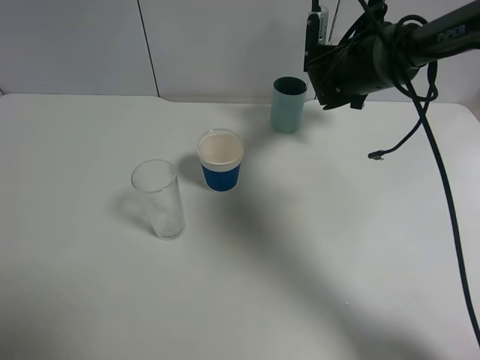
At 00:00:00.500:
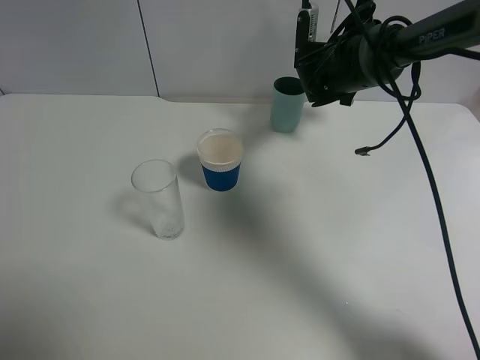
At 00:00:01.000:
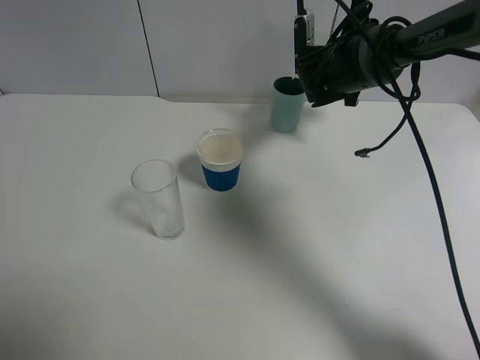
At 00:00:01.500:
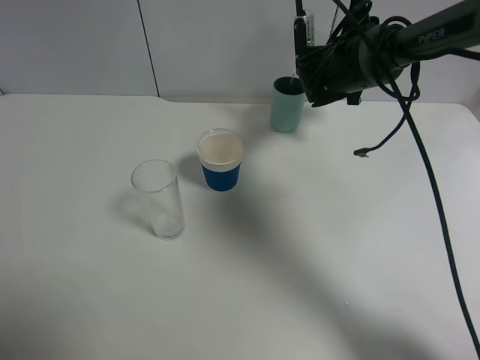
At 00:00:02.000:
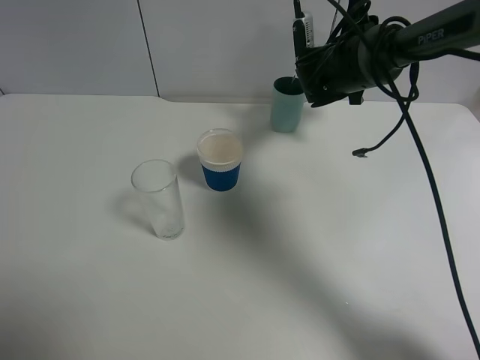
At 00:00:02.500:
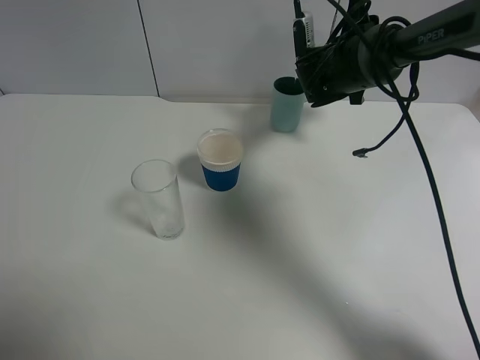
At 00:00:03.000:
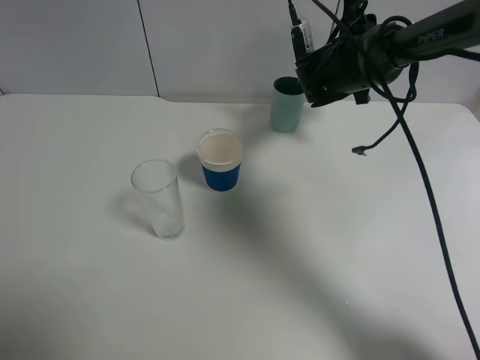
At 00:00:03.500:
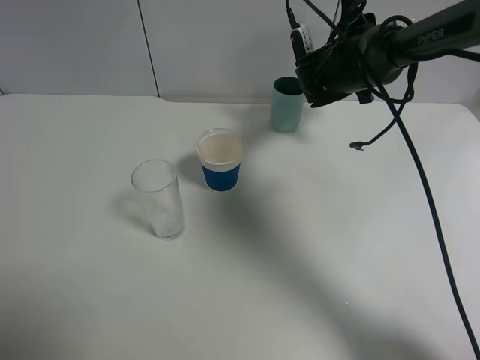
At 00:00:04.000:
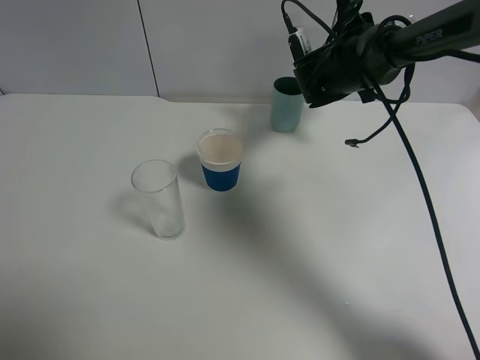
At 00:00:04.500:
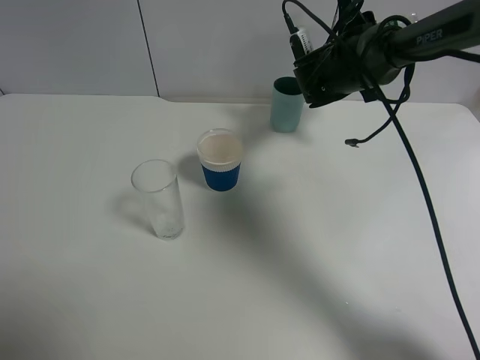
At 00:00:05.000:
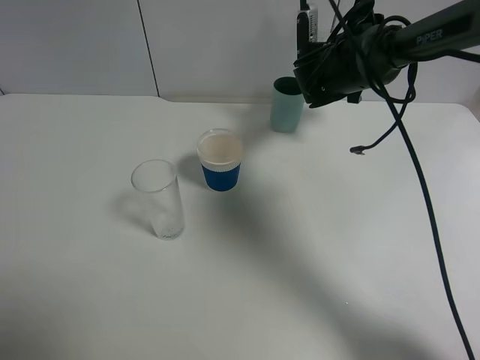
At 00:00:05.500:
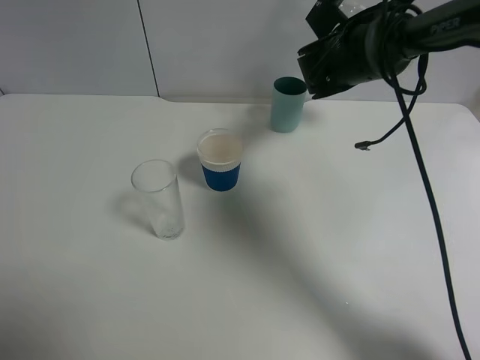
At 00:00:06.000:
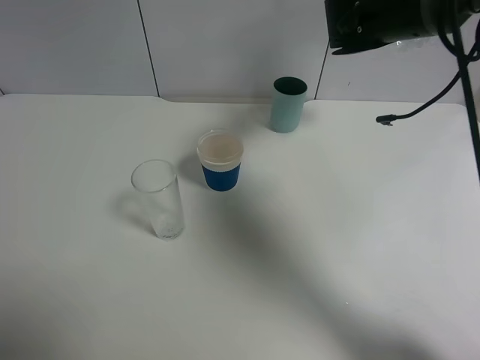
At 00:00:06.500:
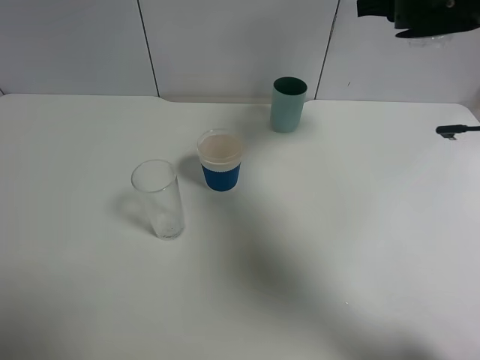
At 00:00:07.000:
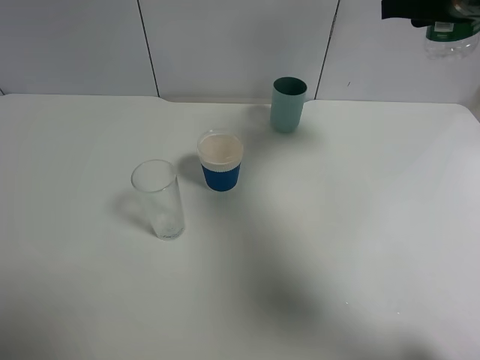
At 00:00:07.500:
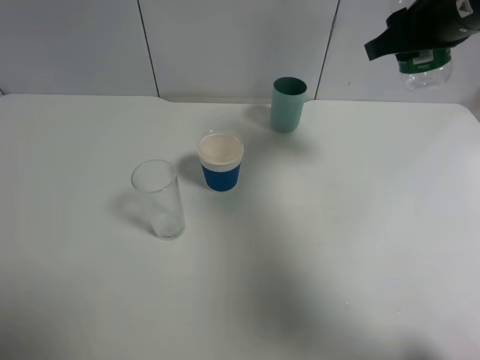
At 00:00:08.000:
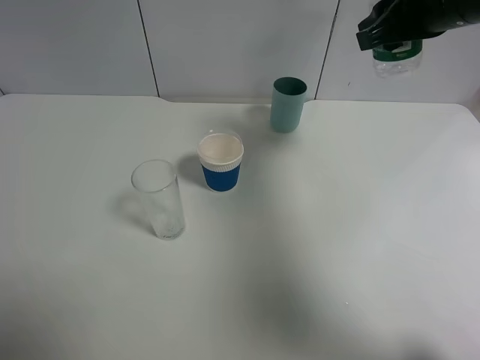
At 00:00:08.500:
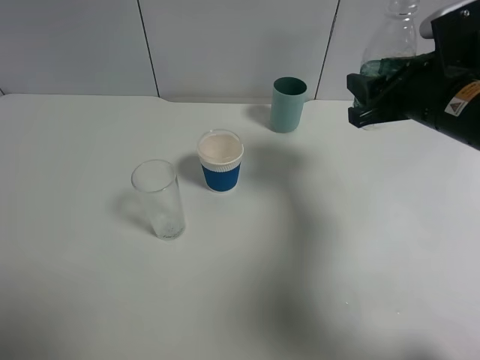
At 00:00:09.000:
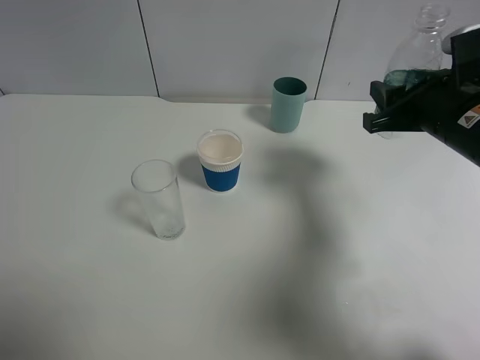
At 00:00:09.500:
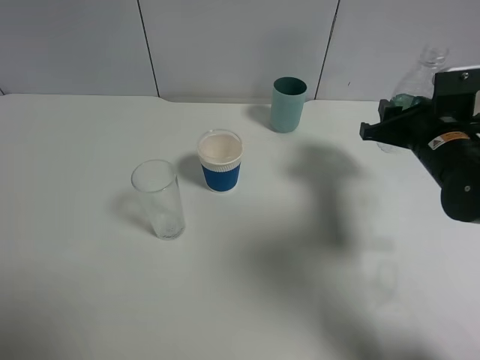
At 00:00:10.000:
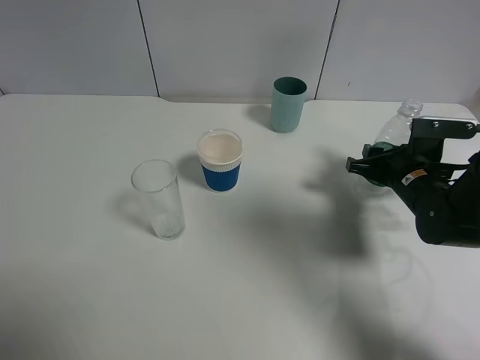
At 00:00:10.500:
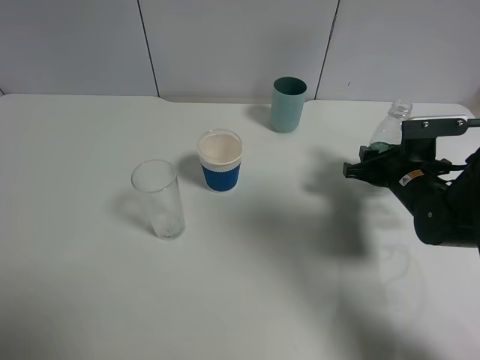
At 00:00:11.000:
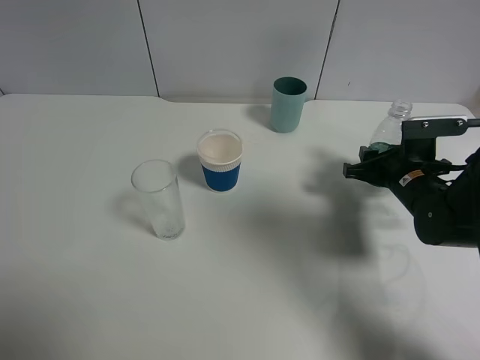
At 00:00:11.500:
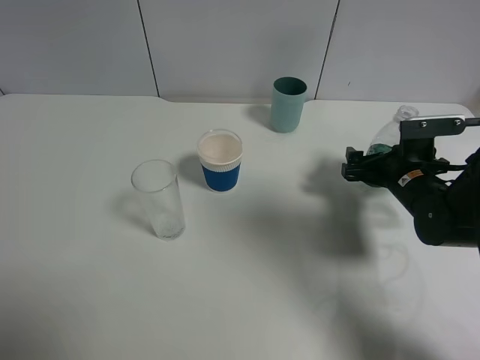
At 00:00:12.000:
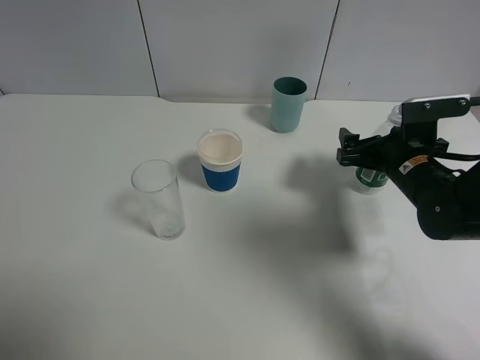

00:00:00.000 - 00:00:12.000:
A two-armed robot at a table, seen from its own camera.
Task of the whole recording: use a gripper to hold the bottle of the drink and pour it into a random cup.
Step, 00:00:00.000 - 00:00:05.000: Pour the mineral water into the cyan cup with the right gripper.
00:00:00.000 - 00:00:02.000: The grippers stay close to where they were, moving slightly.
00:00:02.000 - 00:00:04.000: The grippers move only a little.
00:00:04.000 - 00:00:06.000: The right gripper heads upward, covering about 10 cm.
00:00:06.000 - 00:00:08.000: The right gripper moves backward, about 10 cm.
00:00:08.000 - 00:00:10.000: The right gripper shifts some 25 cm downward.
00:00:10.000 - 00:00:12.000: The right gripper opens.

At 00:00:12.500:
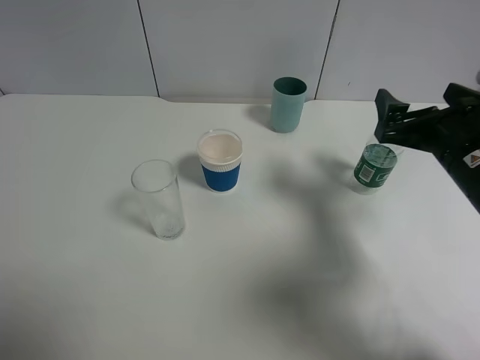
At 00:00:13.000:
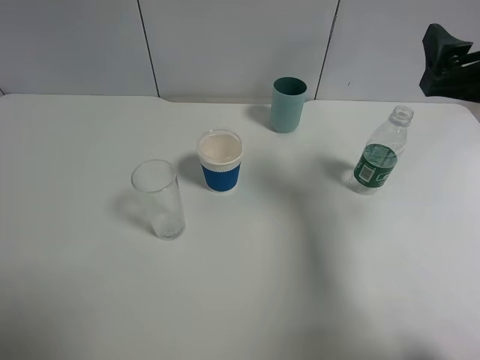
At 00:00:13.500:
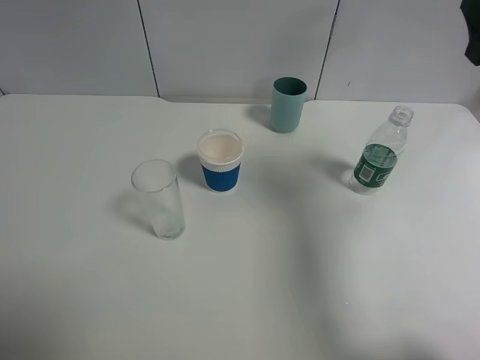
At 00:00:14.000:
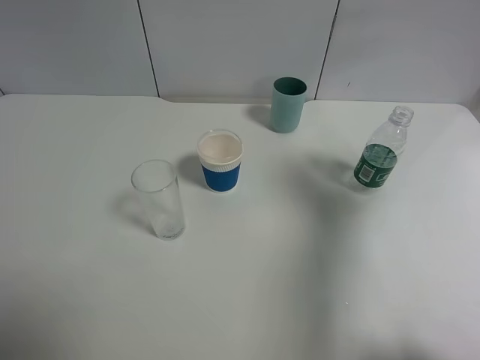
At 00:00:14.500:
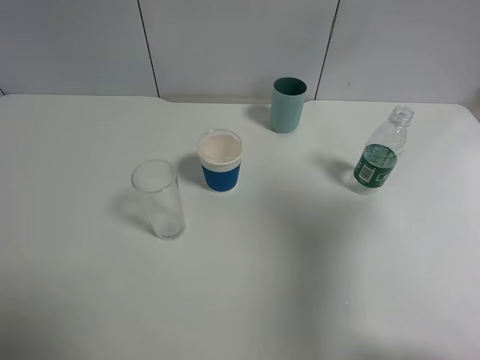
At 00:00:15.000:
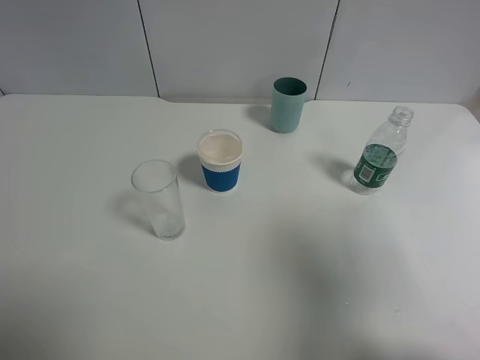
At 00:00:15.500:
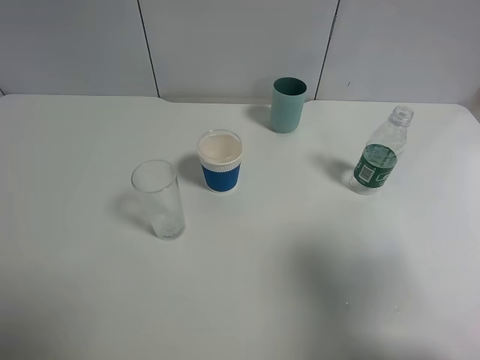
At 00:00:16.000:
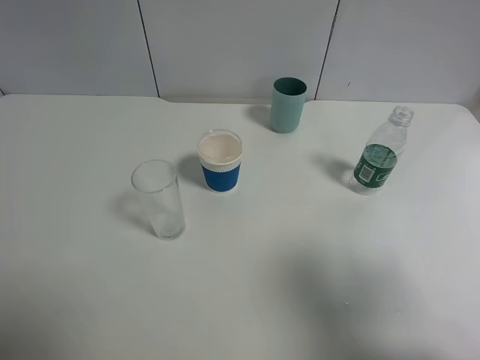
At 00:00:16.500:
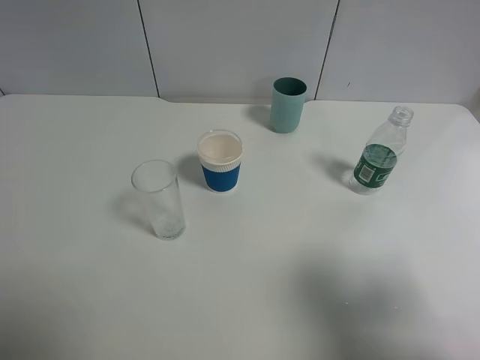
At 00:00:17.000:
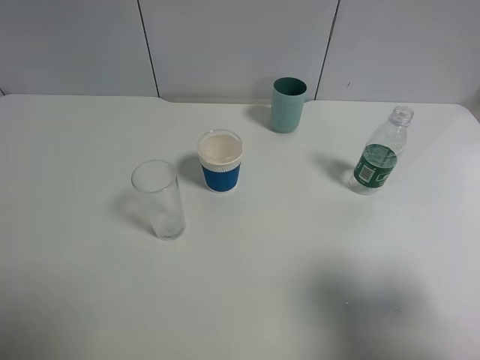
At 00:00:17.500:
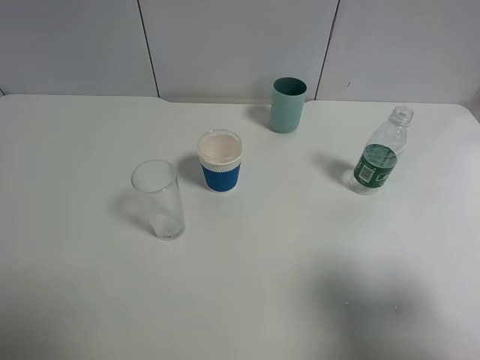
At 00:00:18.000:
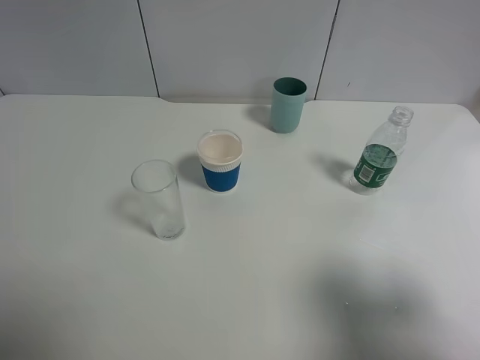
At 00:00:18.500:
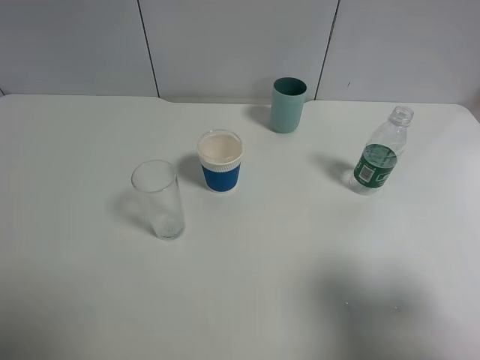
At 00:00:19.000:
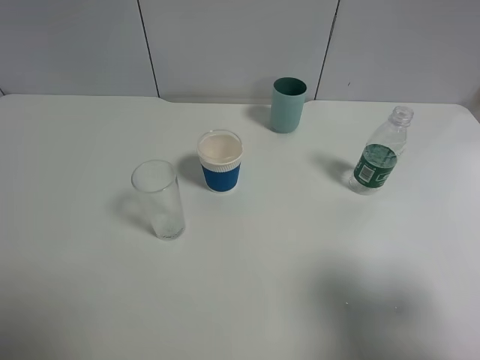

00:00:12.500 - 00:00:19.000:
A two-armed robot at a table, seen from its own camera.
Task of the whole recording: use a gripper to hold the bottle of the drink and pour it into a random cup.
00:00:12.500 - 00:00:14.500: The right gripper heads upward and backward, covering roughly 20 cm.
00:00:14.500 - 00:00:17.000: The right gripper travels downward and backward by some 10 cm.
00:00:17.000 - 00:00:19.000: Both grippers stay about where they are.

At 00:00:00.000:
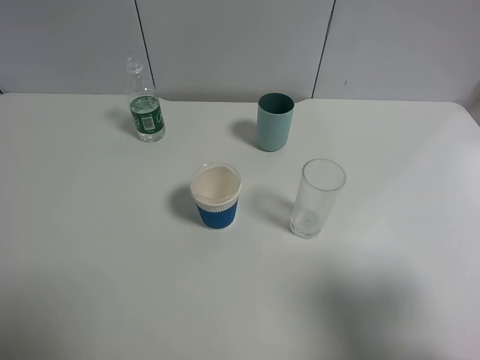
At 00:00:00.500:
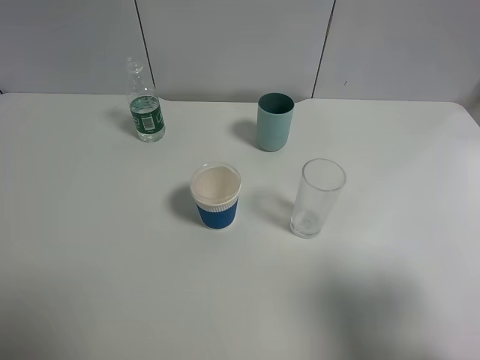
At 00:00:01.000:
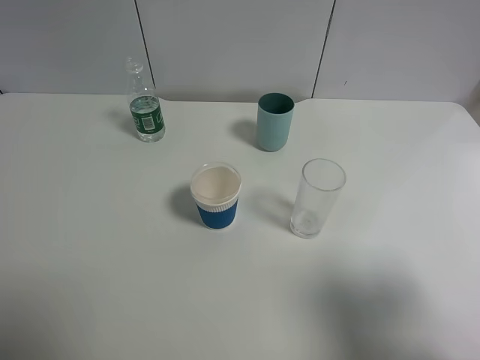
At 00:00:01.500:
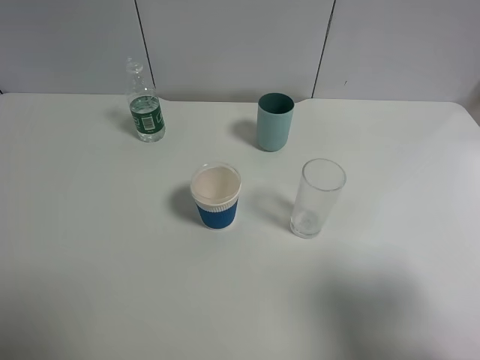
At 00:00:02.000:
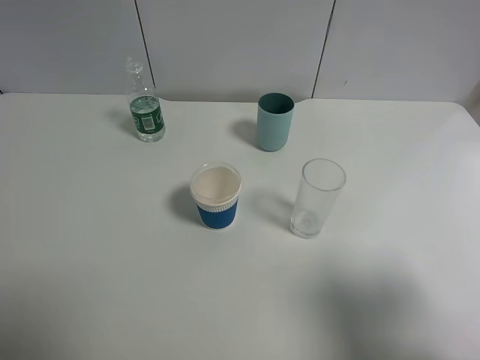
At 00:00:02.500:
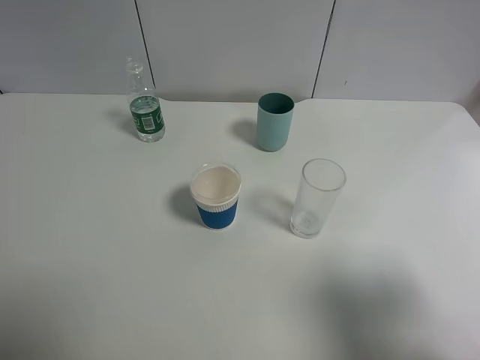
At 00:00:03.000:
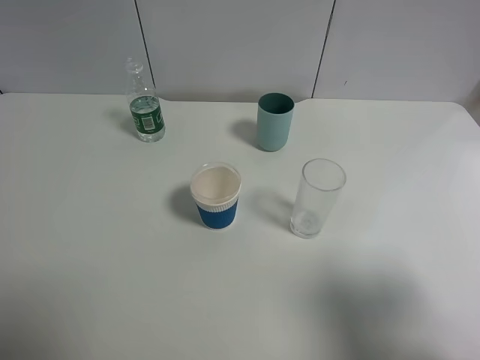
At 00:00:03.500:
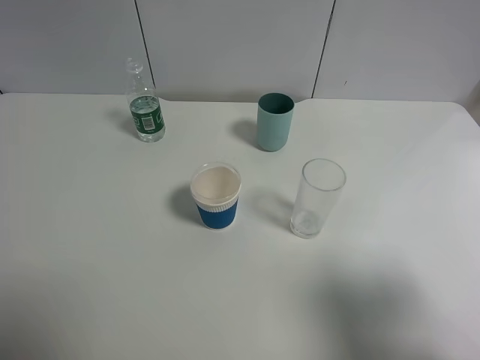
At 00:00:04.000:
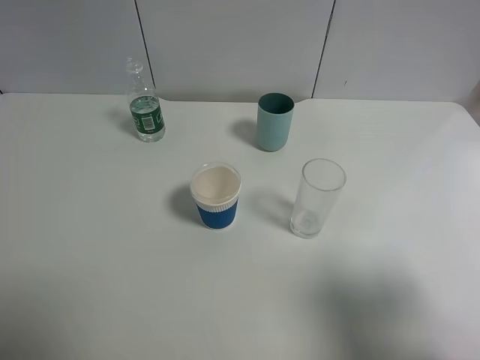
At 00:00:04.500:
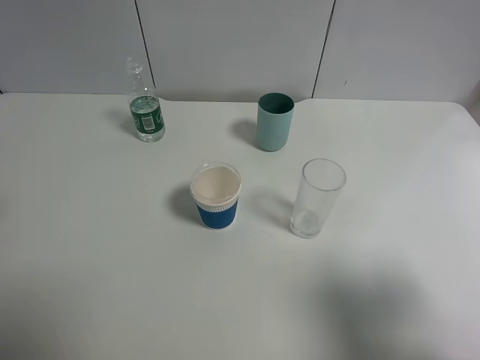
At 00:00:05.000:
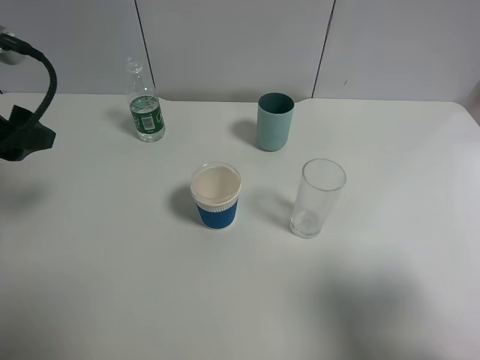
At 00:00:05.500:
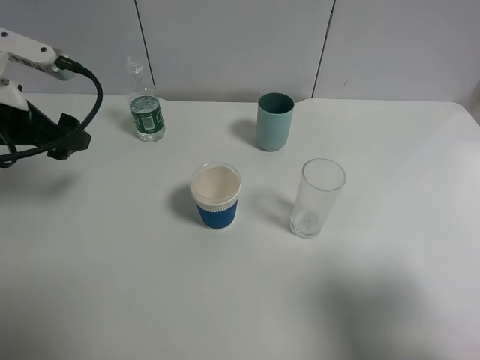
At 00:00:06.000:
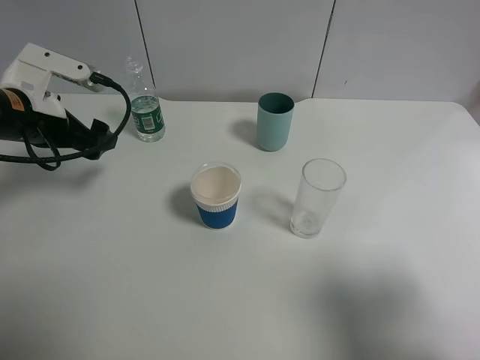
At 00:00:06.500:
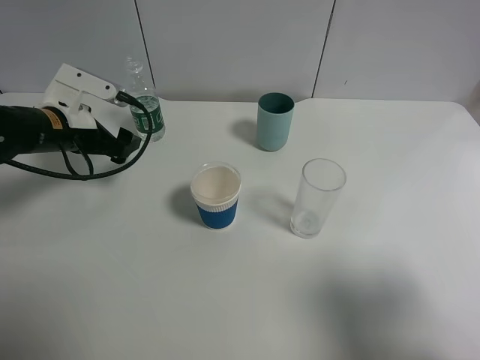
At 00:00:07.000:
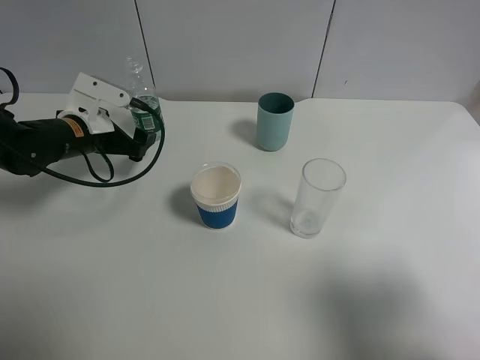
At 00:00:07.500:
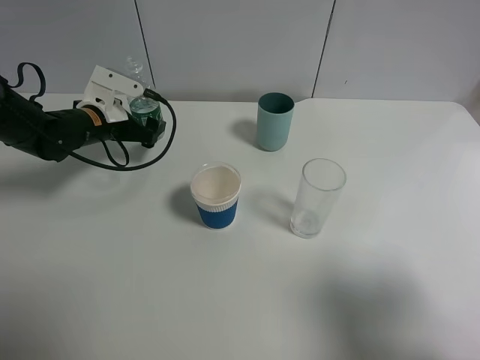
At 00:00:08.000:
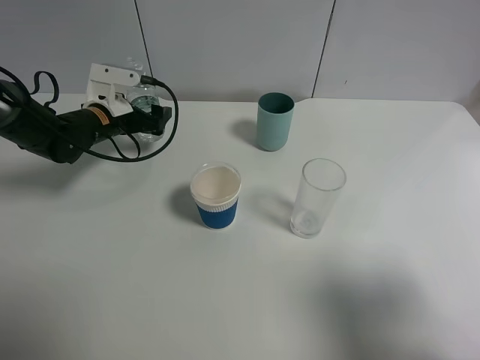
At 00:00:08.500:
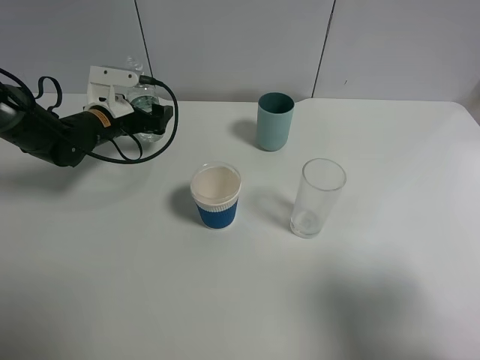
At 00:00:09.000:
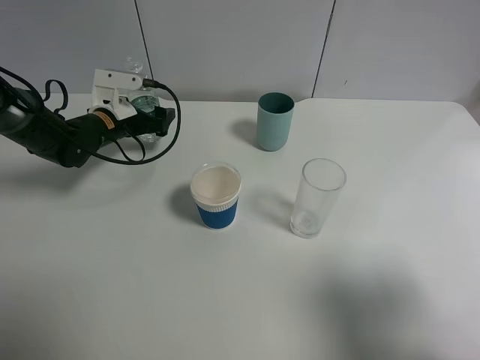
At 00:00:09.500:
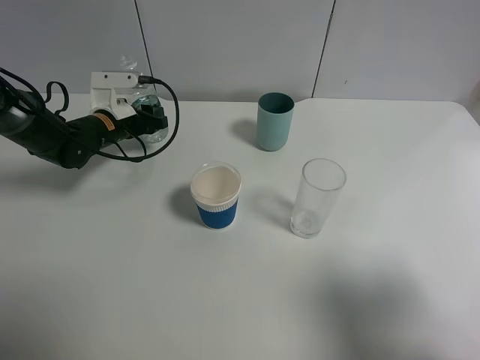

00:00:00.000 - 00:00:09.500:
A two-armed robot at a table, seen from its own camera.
Task of the whole recording: use a gripper to hold the bottle of the drink and pour it into a random cup.
00:00:00.000 - 00:00:02.000: Both grippers stay put.
00:00:04.000 - 00:00:05.500: The left gripper travels forward by roughly 25 cm.
00:00:05.500 - 00:00:07.500: The left gripper shifts approximately 20 cm forward and downward.
00:00:07.500 - 00:00:09.500: The left gripper closes.
